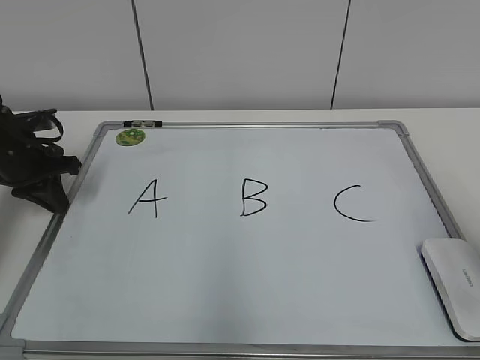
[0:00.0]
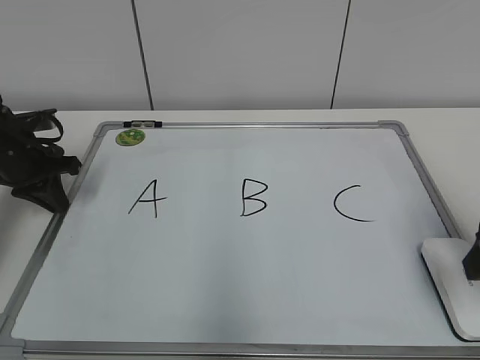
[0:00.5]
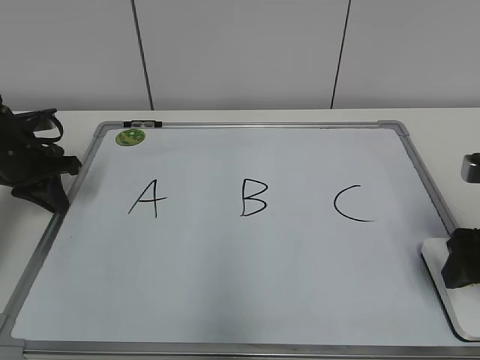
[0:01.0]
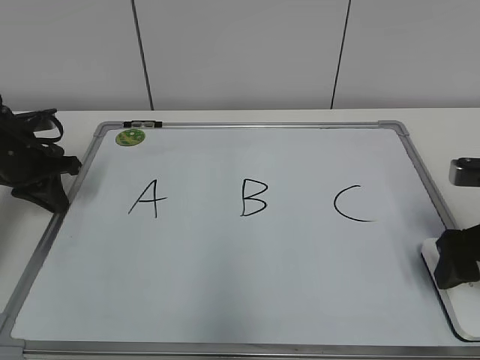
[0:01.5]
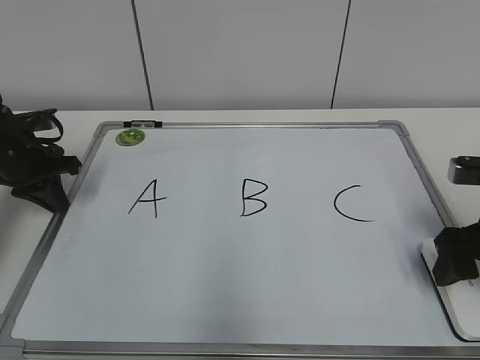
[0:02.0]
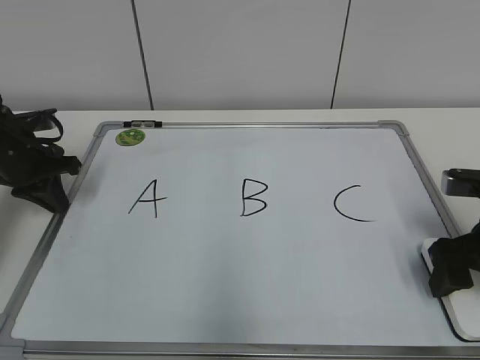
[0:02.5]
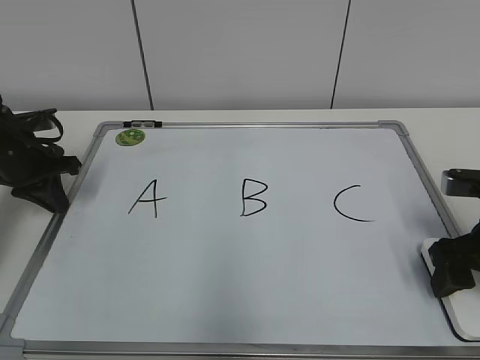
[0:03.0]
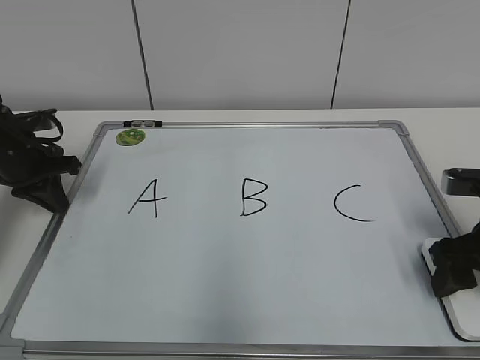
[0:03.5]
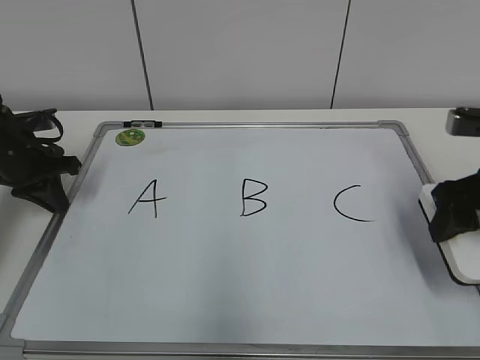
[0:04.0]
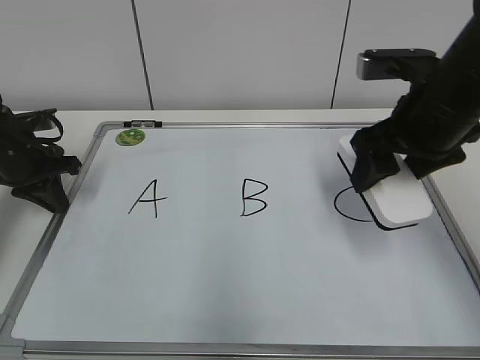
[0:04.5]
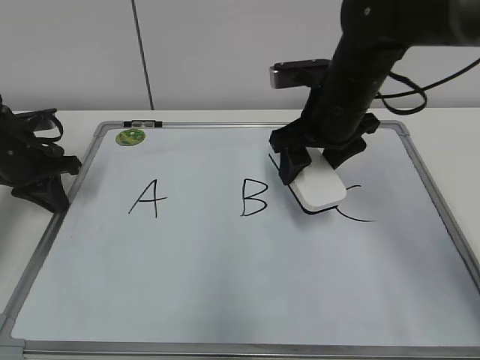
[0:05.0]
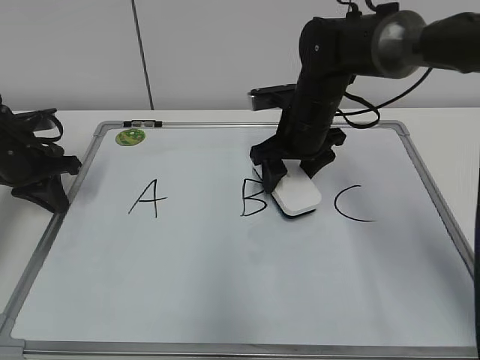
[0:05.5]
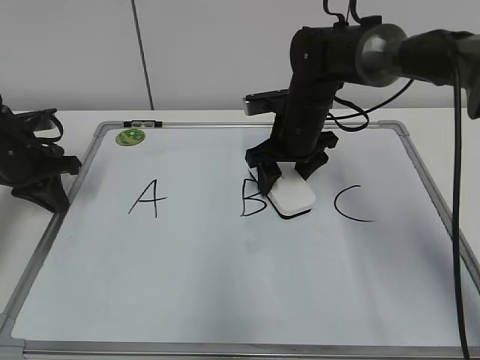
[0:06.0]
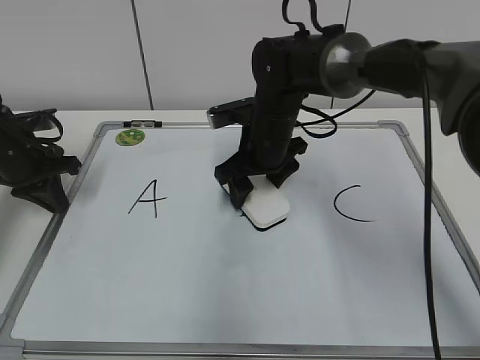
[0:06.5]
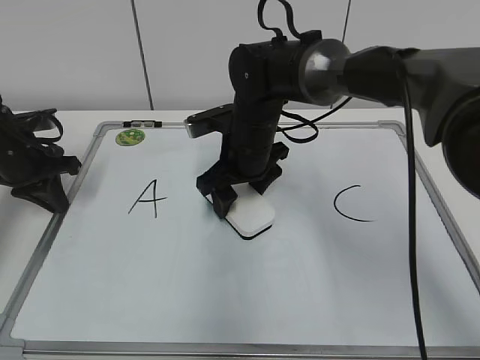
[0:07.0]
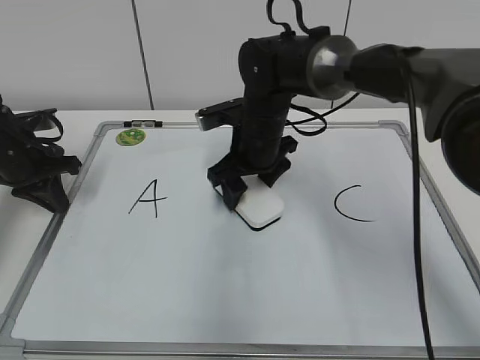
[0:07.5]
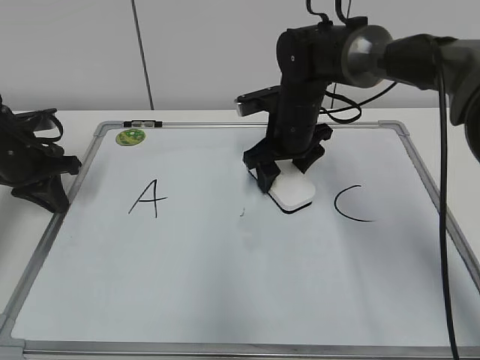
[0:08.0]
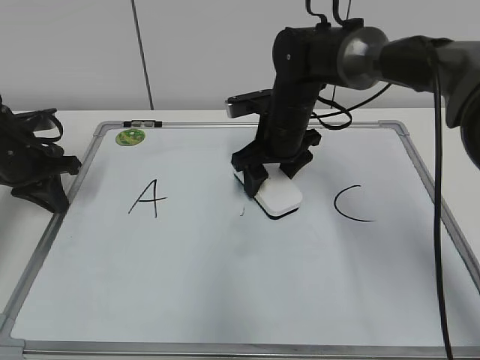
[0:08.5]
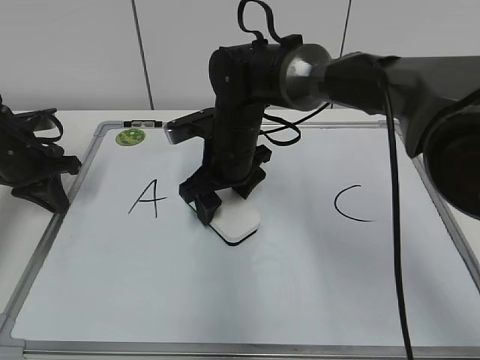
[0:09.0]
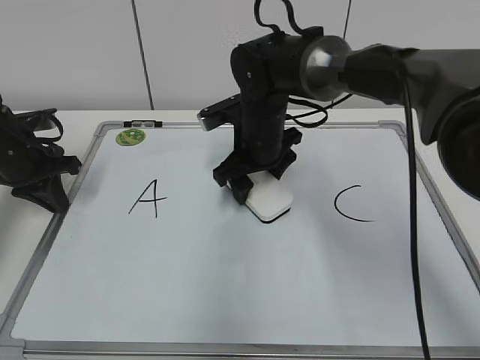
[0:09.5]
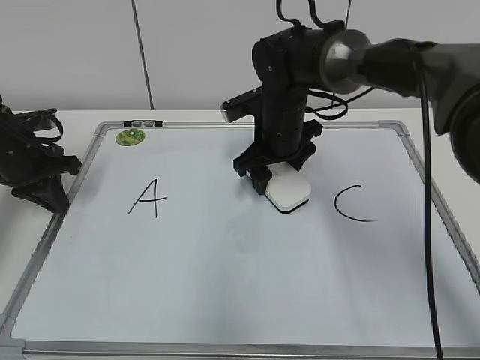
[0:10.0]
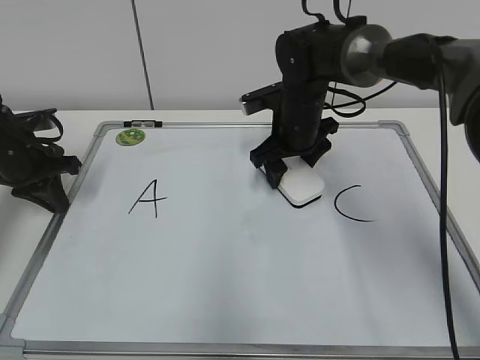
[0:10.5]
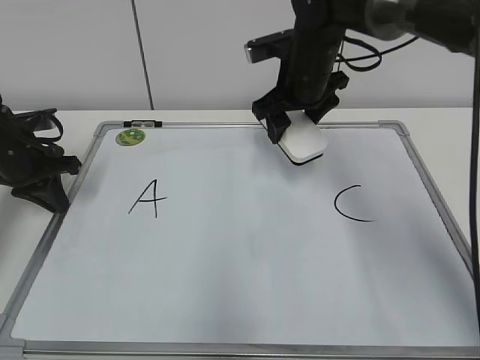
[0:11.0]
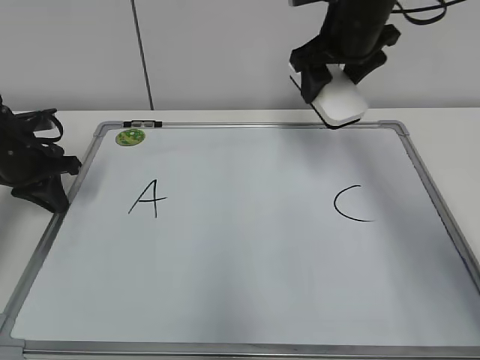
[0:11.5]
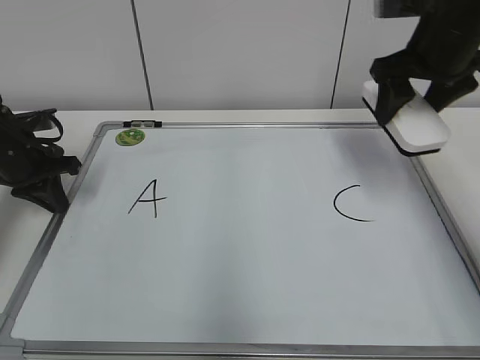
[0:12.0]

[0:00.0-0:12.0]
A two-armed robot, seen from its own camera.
Task of the whole recording: pick up the eraser on the blackboard and erase the letter "B".
Step, 0:00.0 to 0:03.0: Grab the eraser with your right hand.
Step, 0:03.5 to 0:10.5: Erase the letter B with your right hand.
0:00.0 to 0:02.0: The right gripper goes approximately 15 cm downward and forward, and opens its fingers.
0:02.0 to 0:04.0: The right gripper closes up.
0:04.0 to 0:06.0: The right gripper goes approximately 25 cm to the left and forward.
0:08.0 to 0:10.0: The right gripper moves about 10 cm to the left and comes back.
0:10.0 to 0:12.0: The right gripper travels to the right and upward by about 20 cm.

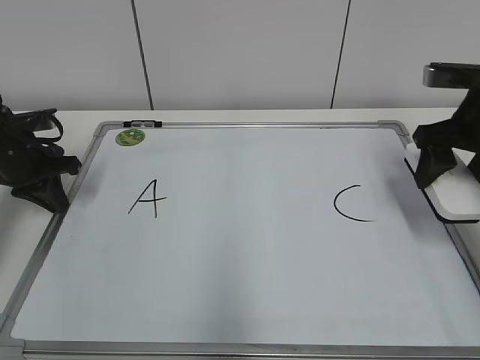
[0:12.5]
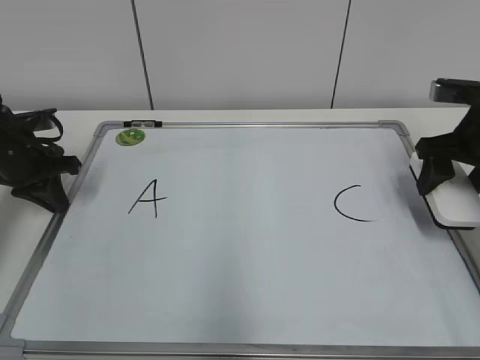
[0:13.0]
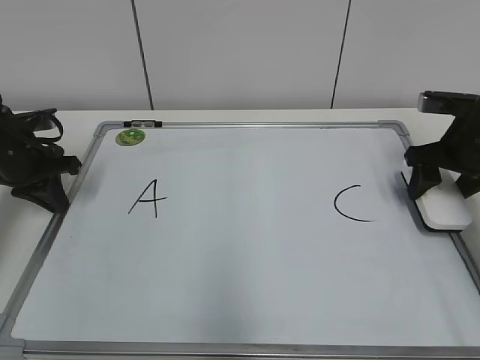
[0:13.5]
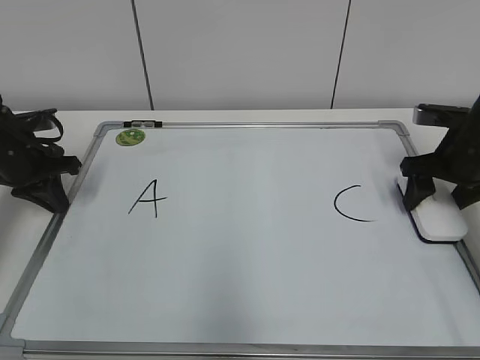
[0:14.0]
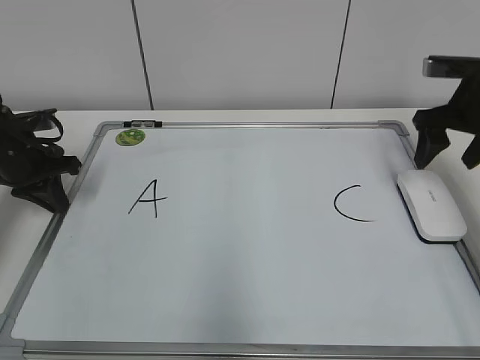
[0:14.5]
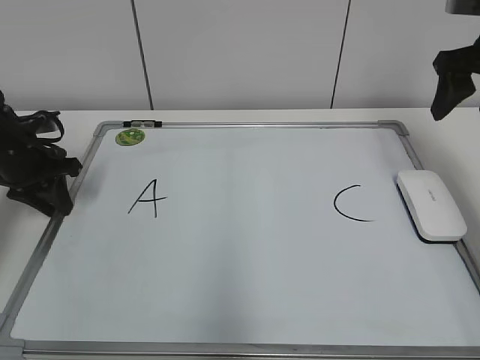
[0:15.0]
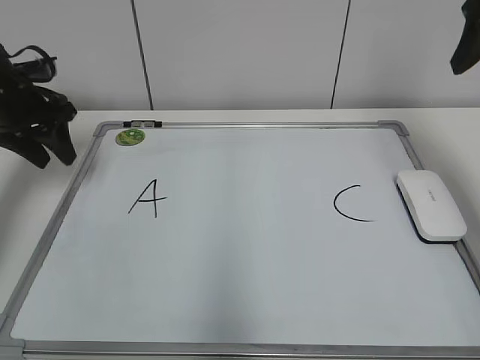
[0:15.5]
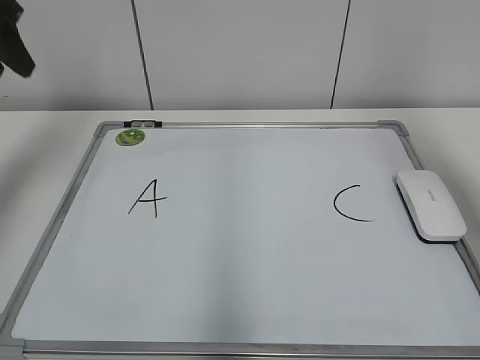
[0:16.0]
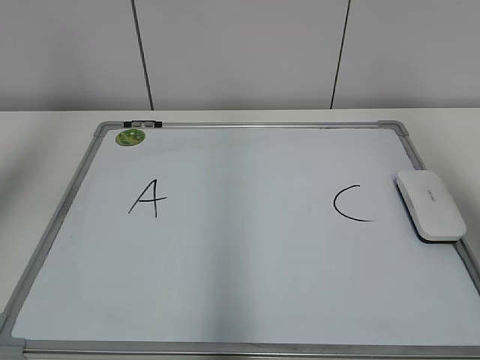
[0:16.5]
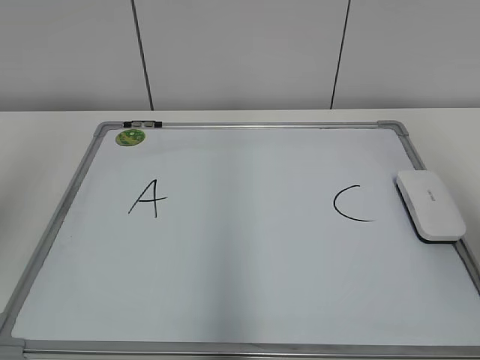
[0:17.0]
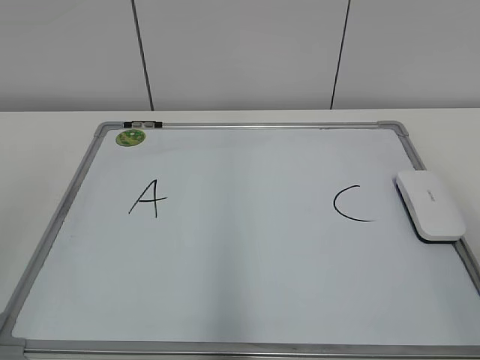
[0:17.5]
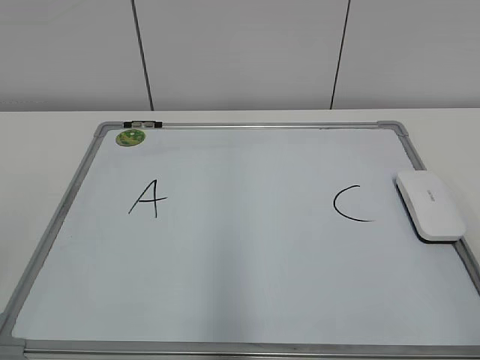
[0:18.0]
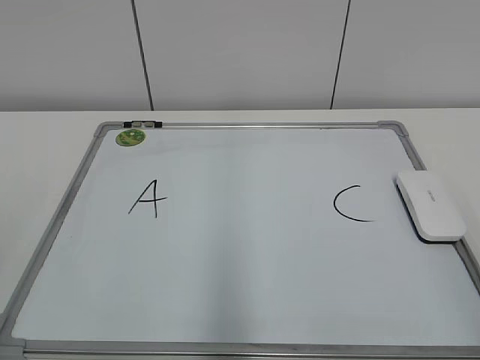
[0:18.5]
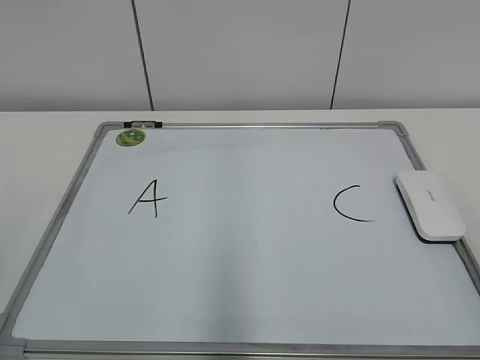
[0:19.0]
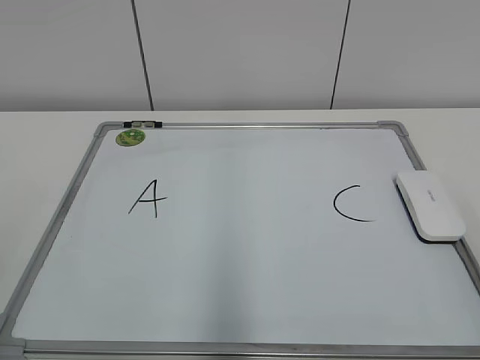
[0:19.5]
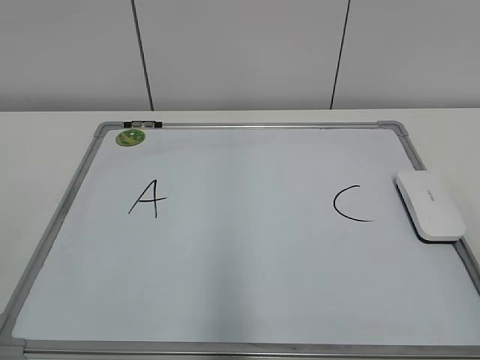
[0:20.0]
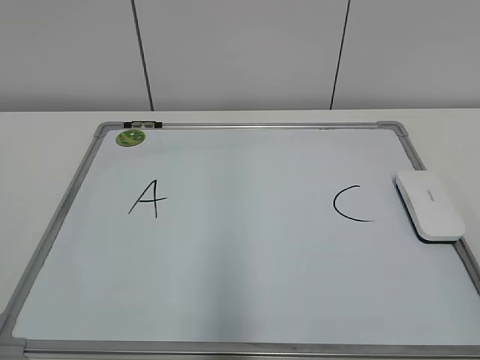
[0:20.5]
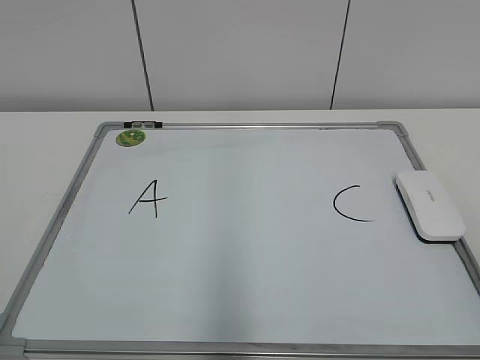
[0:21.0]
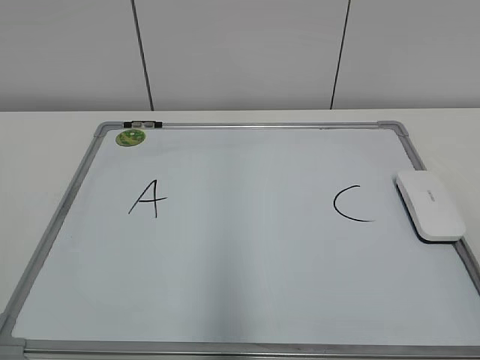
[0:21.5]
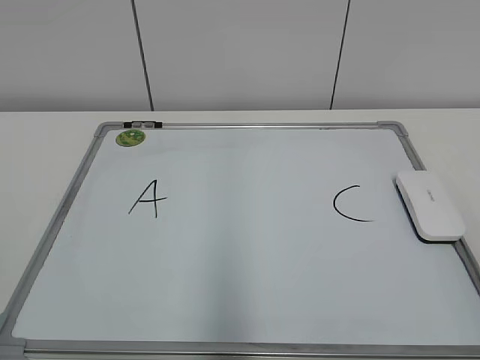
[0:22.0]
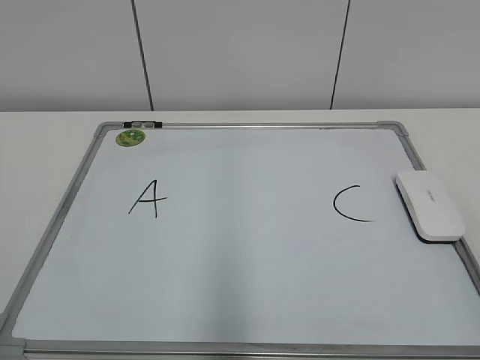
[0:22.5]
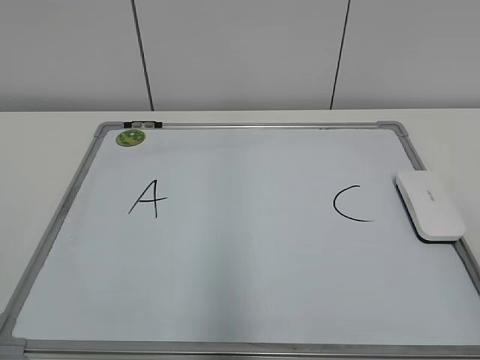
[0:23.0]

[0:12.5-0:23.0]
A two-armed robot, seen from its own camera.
Task of the whole recording: pick up the eraser on the blackboard and erase the letter "B".
0:12.5 to 0:14.5: The right gripper travels downward and back again, about 10 cm each way, and opens.
0:14.5 to 0:16.5: Both grippers move upward and backward, roughly 30 cm. The left gripper opens its fingers. Meanwhile the right gripper closes up.
0:16.5 to 0:19.0: The grippers both shift backward and downward by roughly 25 cm.
0:21.0 to 0:23.0: Neither gripper changes place.
